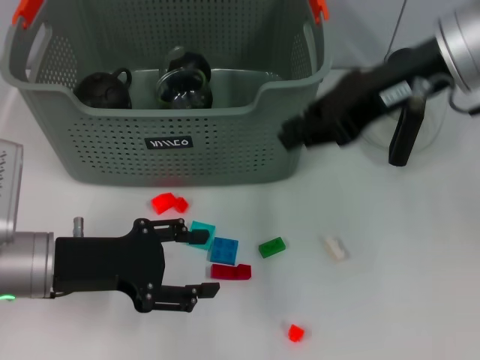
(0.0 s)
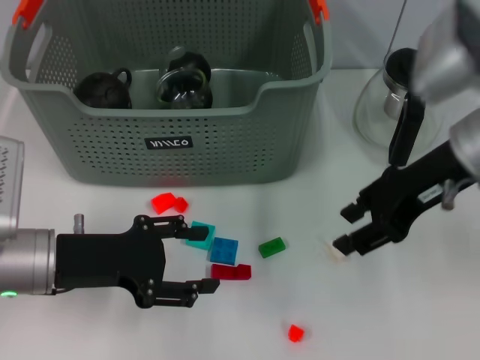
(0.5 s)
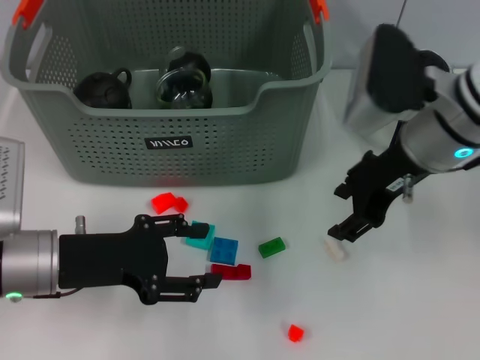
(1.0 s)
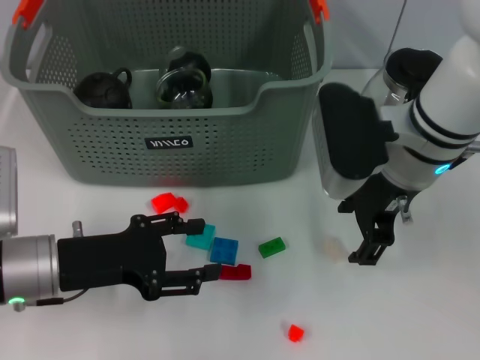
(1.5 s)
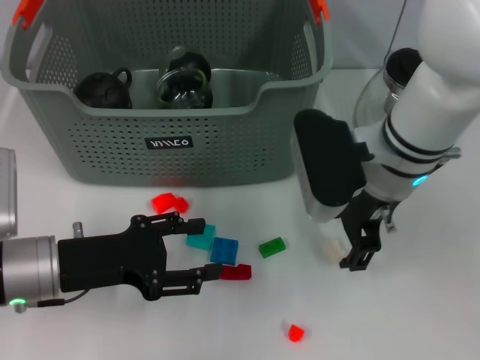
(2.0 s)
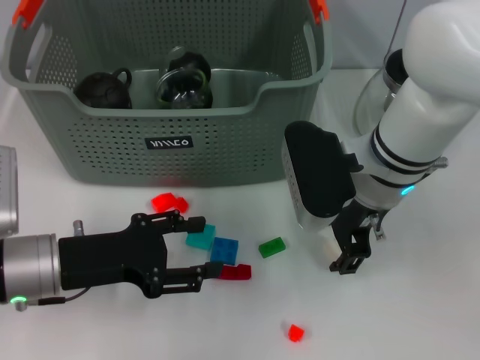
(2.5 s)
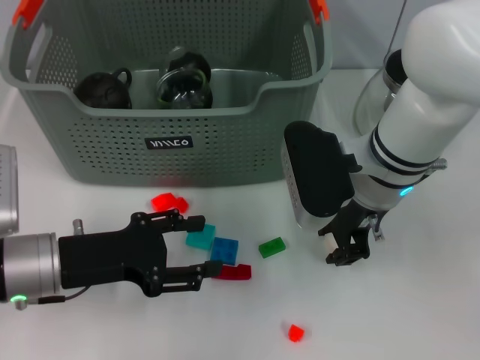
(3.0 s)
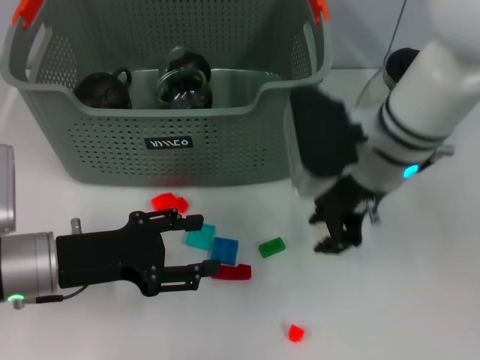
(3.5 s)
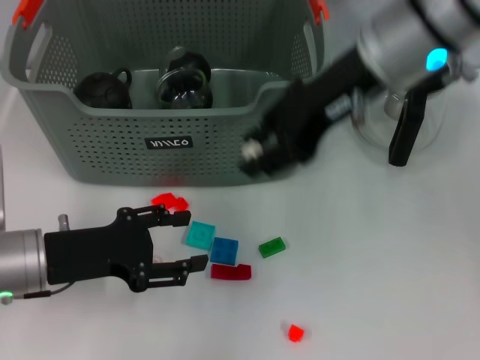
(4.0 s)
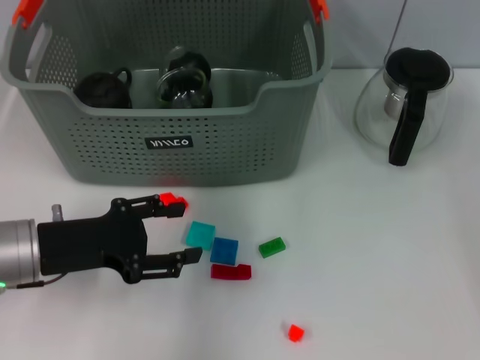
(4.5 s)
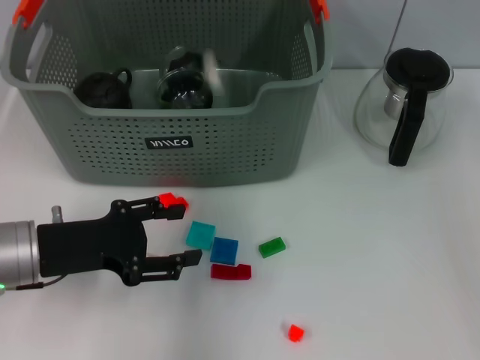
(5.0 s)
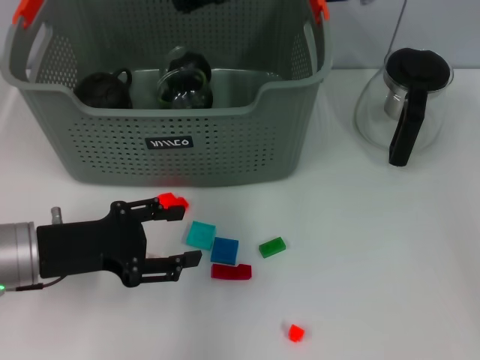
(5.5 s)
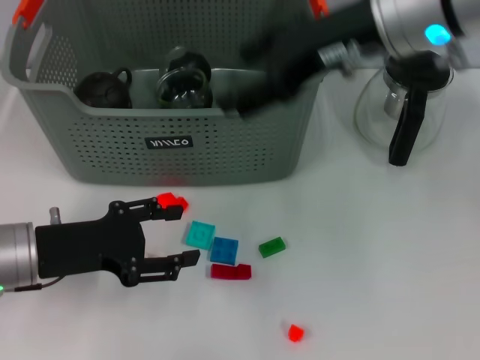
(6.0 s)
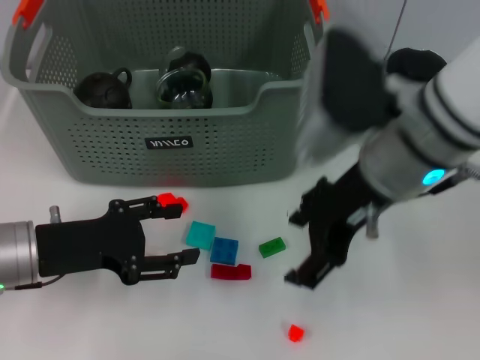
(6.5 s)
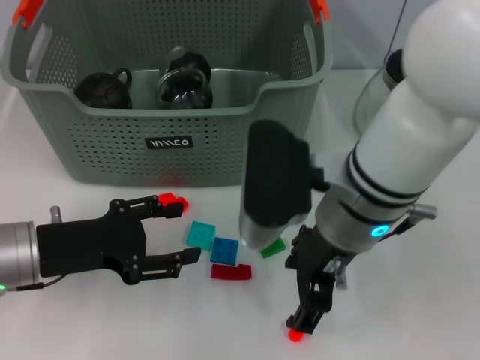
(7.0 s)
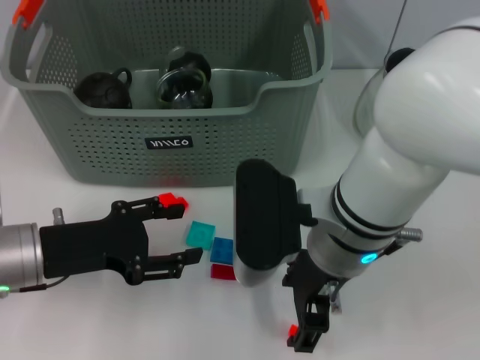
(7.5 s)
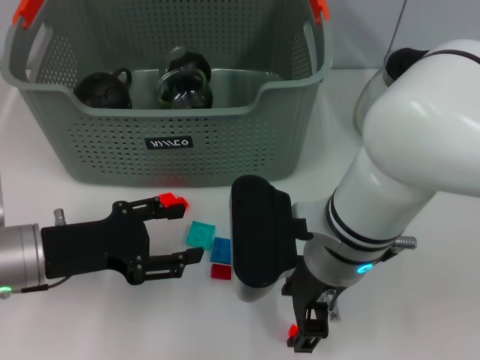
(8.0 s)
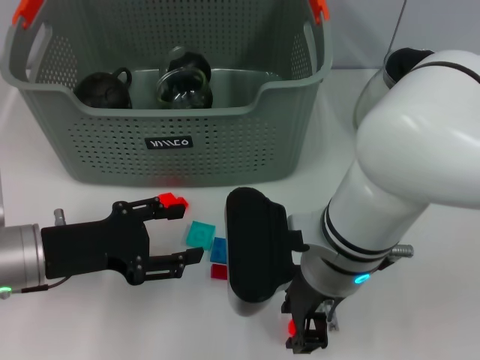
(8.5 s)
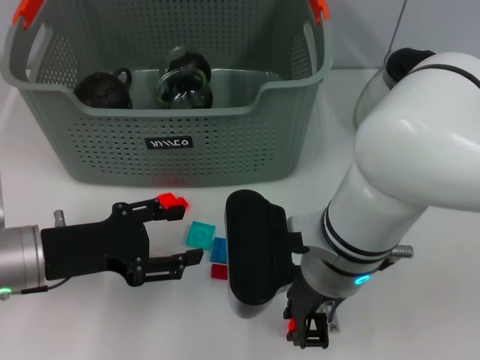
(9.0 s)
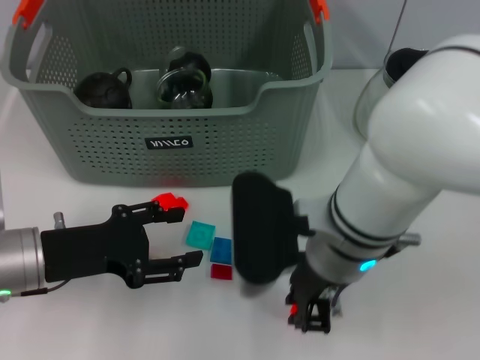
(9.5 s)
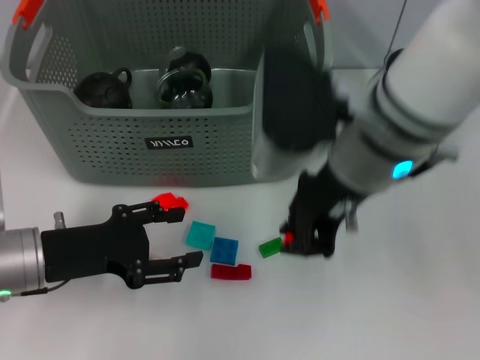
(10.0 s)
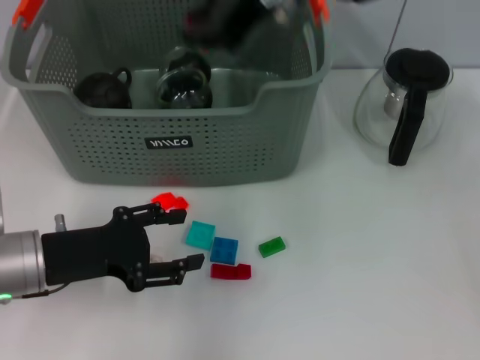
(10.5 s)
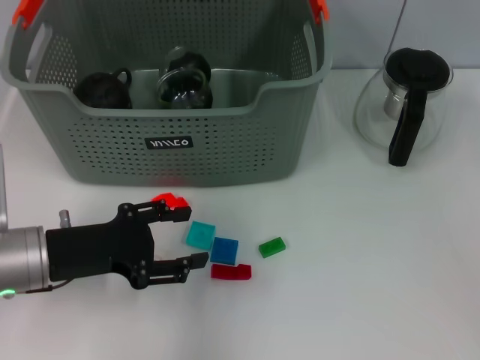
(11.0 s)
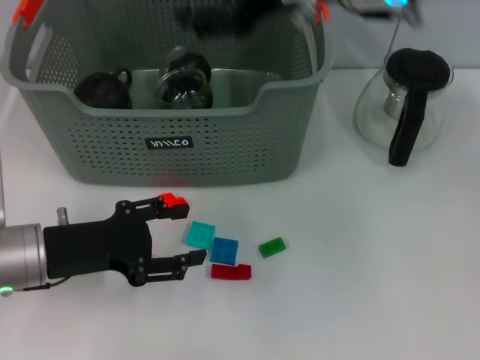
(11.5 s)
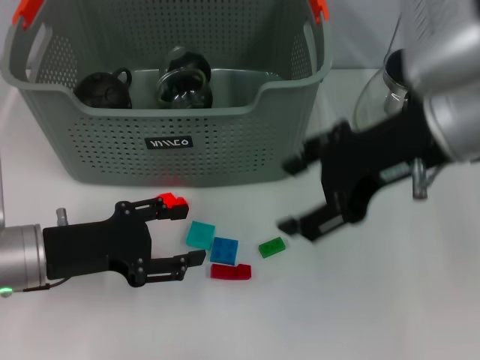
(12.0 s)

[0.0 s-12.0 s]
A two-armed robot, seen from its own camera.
Task of the whole recording: pick up the teacup on the table and place it into the storage bin, pick up the block on the table and place it into the storage bin.
Step, 0.0 to 3.0 s: Grasp the white block with right gripper.
Step, 3.5 to 5.0 s: Place the white block in the storage box with right gripper.
Step, 5.5 to 8.5 s: Grasp the orange block with right gripper.
Step, 9.5 to 10.5 s: Place the orange block in the storage box with right gripper.
0.0 to 2.0 s: The right gripper goes approximately 15 cm downward and to the left, and opens its fingers.
2.0 to 4.0 s: The right gripper is displaced upward by about 15 cm, and closes its fingers.
4.0 to 6.0 s: The right gripper travels forward and back again, approximately 10 cm each way, and opens.
6.0 to 8.0 s: The right gripper travels downward, backward and to the left by approximately 20 cm.
8.0 to 10.0 s: The right gripper shifts about 10 cm upward, and closes up.
10.0 to 12.0 s: The right gripper travels to the right by some 5 cm, goes forward and returns, about 10 cm each way, and opens up.

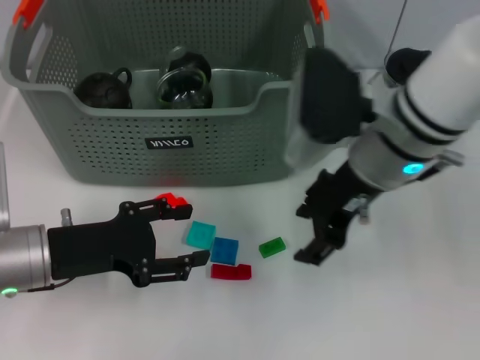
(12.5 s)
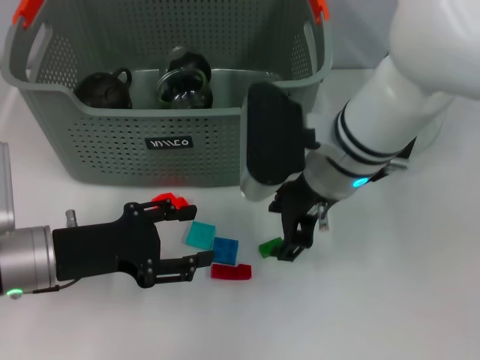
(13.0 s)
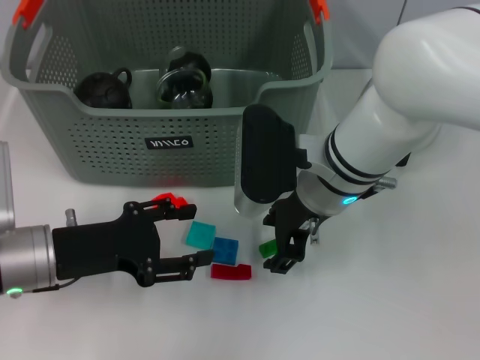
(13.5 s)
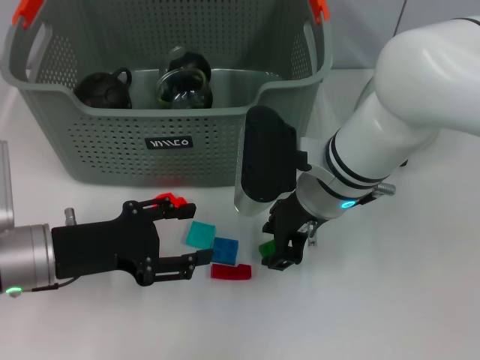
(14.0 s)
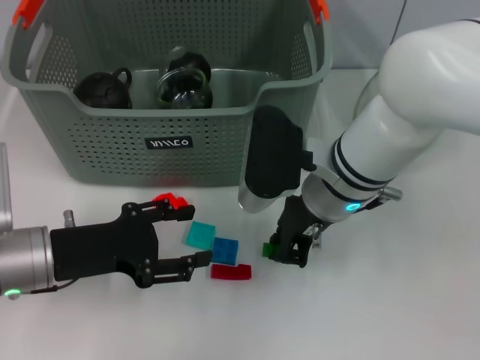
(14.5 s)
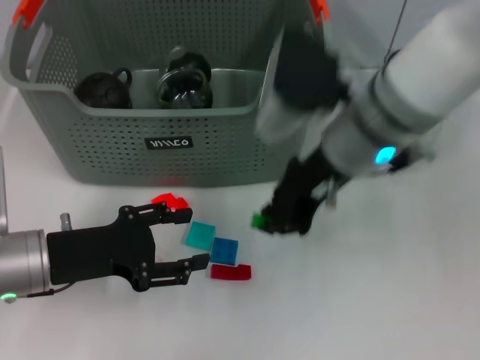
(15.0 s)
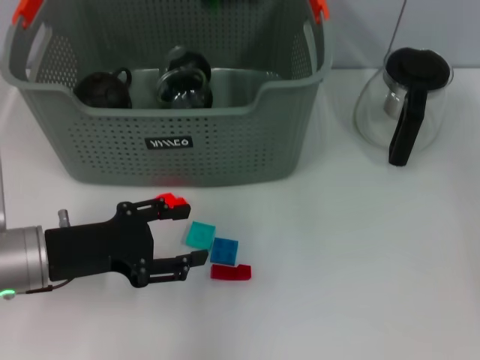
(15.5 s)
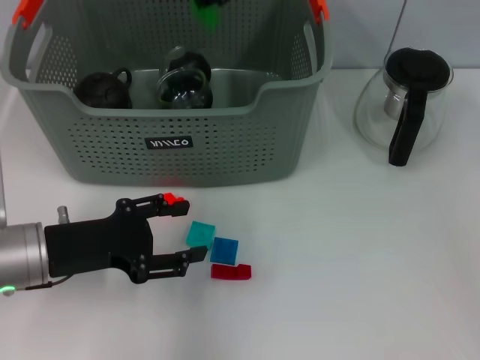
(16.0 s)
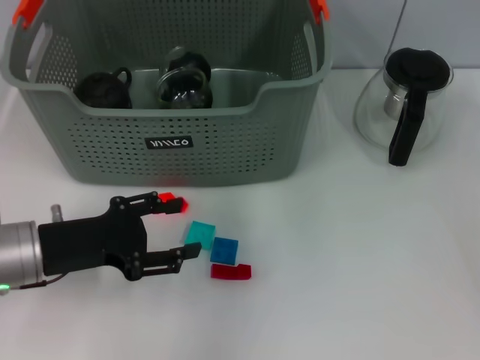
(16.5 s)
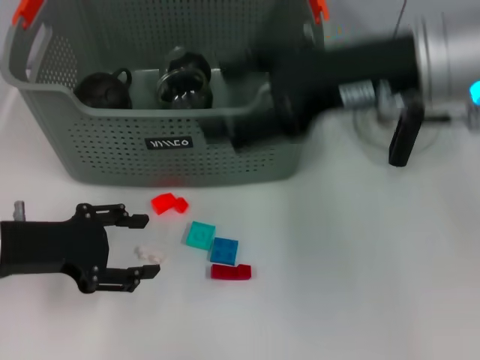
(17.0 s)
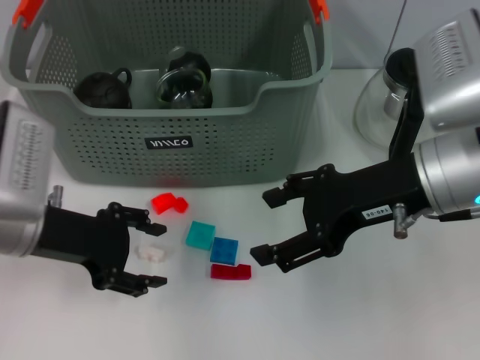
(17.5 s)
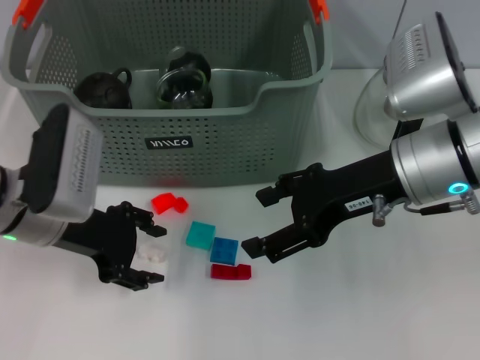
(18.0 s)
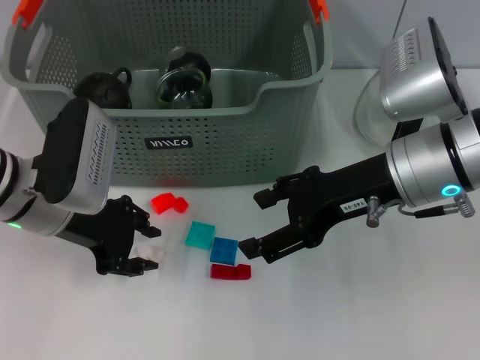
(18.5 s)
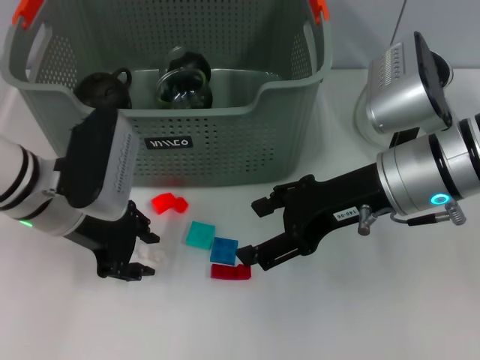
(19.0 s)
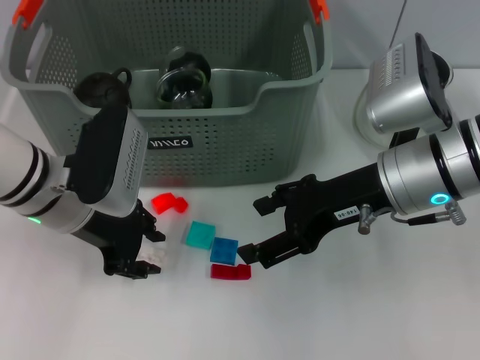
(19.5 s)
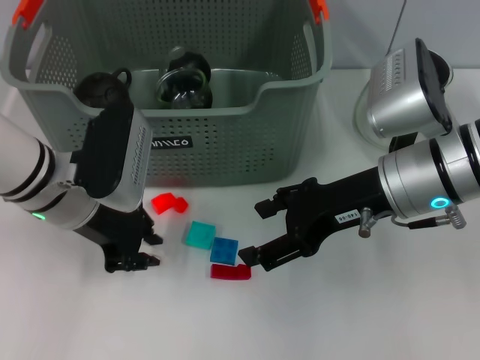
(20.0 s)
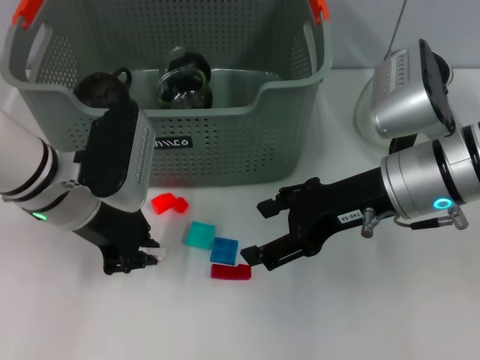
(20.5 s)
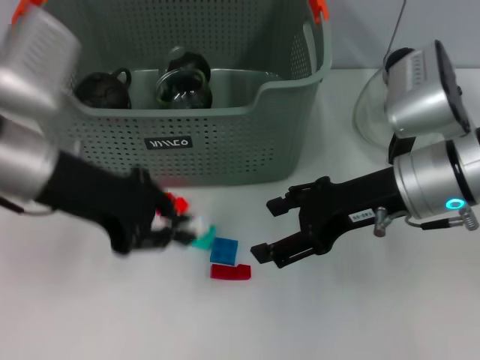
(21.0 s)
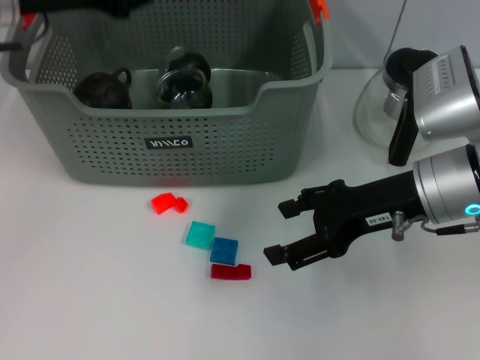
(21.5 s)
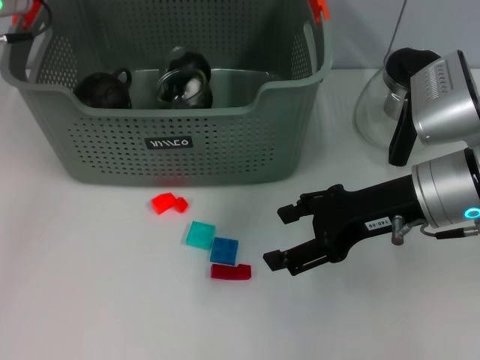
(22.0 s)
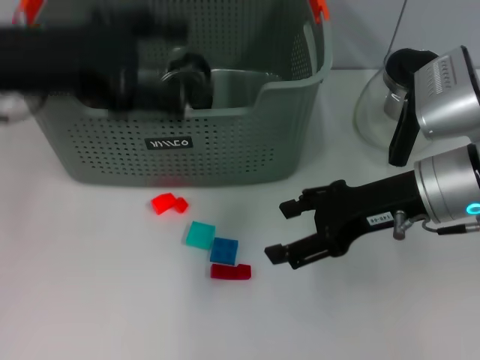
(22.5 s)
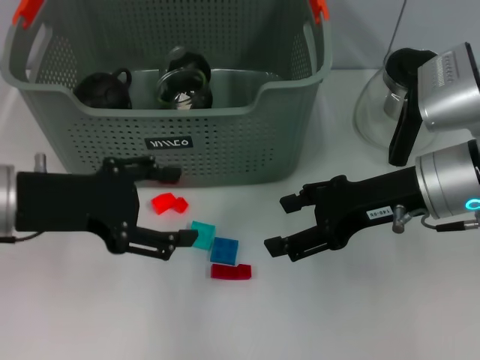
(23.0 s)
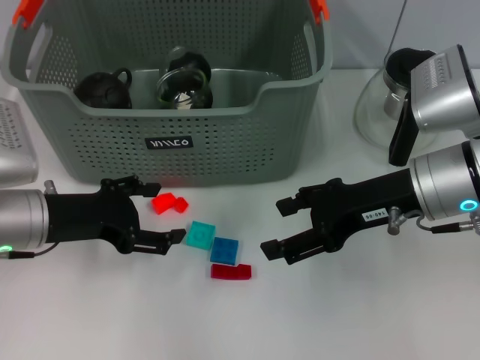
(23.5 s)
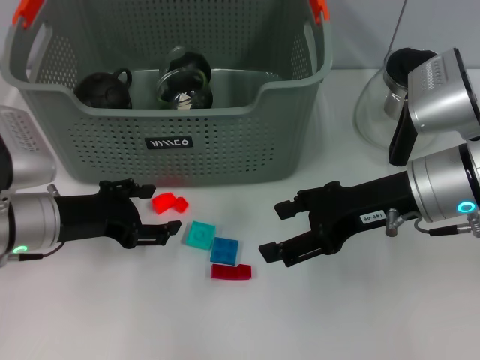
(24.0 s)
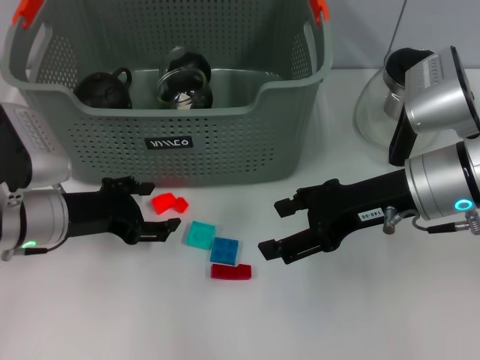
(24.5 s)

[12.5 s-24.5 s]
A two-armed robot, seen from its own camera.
Task of the whole recording: pick up the teacup on the table and place it into the storage bin, pick up the block on the table and place it into the storage bin.
Step, 14.5 to 16.0 s: Place the green block in the storage box with right gripper.
Step, 16.5 to 19.5 s: Grasp the white block with left gripper.
Step, 20.5 to 22.0 s: Place the white block in the storage box with left gripper.
12.5 to 14.5 s: The right gripper moves downward, some 5 cm, and closes its fingers.
14.5 to 16.5 s: The right gripper is displaced upward by about 20 cm.
16.5 to 18.5 s: The left gripper heads forward, covering roughly 5 cm. The right gripper goes some 20 cm downward, backward and to the right, and opens up.
18.5 to 20.5 s: The left gripper closes up.
20.5 to 22.5 s: The left gripper moves upward, approximately 15 cm, and opens up.
22.5 to 24.5 s: The left gripper heads downward, covering approximately 20 cm.

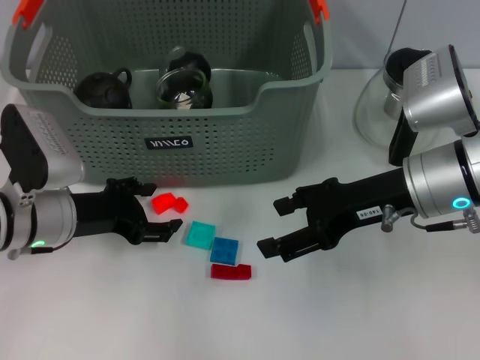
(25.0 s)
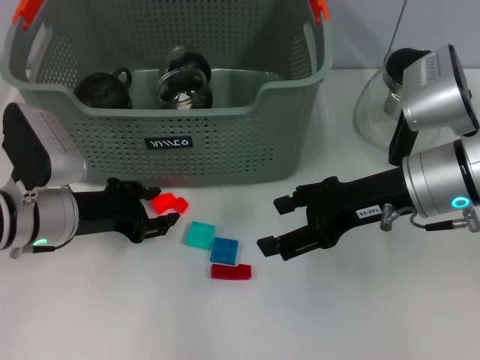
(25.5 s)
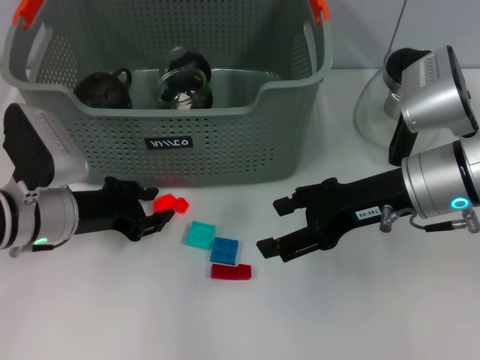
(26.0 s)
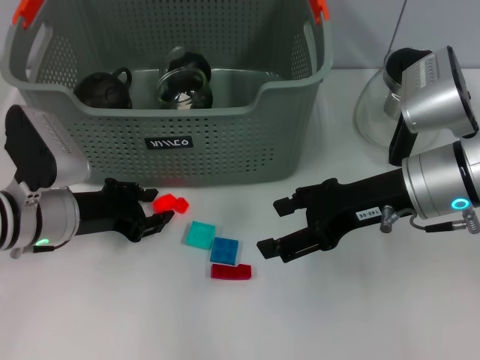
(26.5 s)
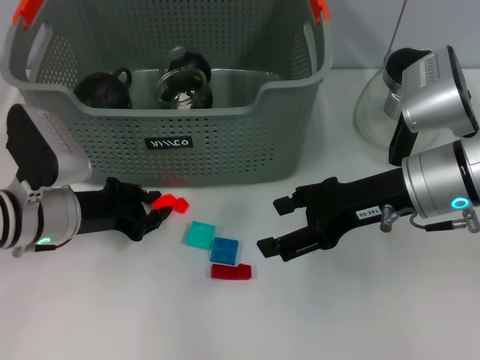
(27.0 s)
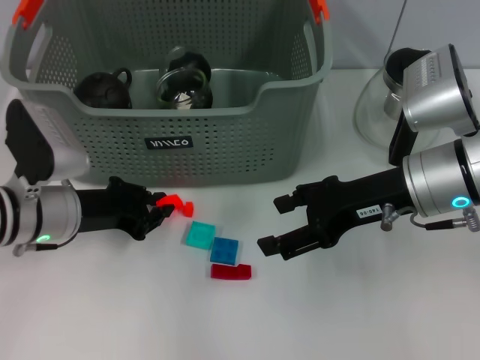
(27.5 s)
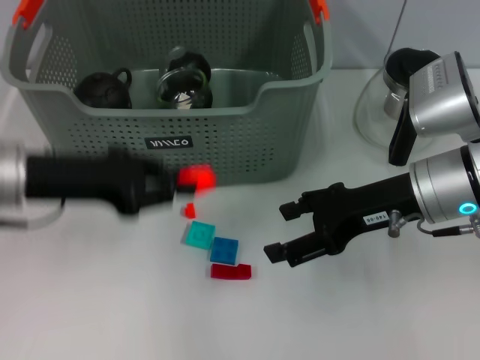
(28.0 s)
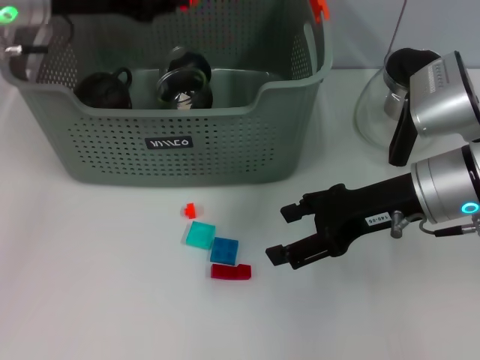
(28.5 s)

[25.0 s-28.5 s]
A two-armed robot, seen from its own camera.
Task of the whole recording: pick up the teacup on the table and place it into the storage bin, pick up the block on the table and place it into the storage bin.
Step, 25.0 to 27.0 s: Grasp the orange block with left gripper.
25.0 to 27.0 s: The left gripper closes.
27.0 to 28.5 s: The left gripper heads upward and forward, covering some 20 cm.
